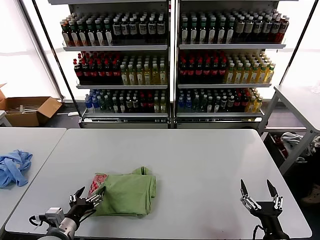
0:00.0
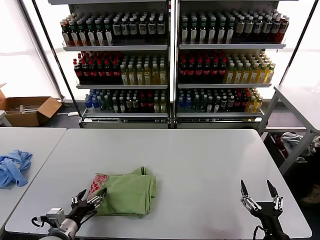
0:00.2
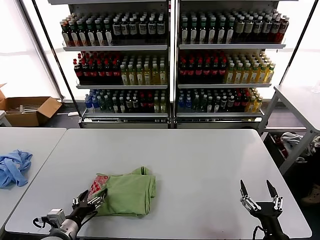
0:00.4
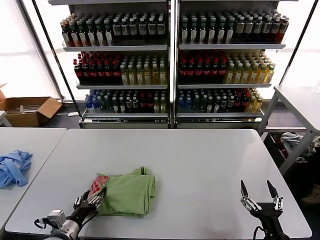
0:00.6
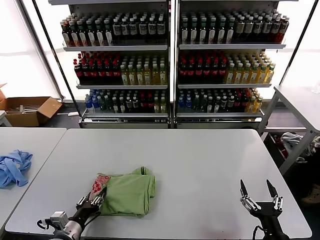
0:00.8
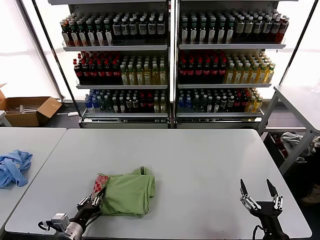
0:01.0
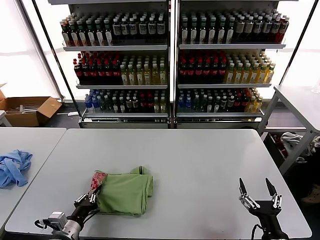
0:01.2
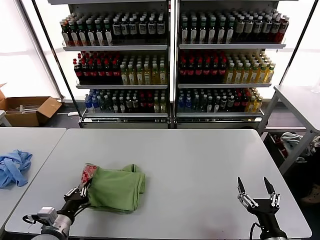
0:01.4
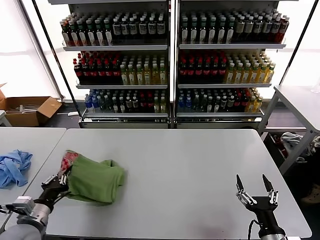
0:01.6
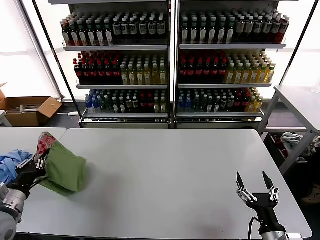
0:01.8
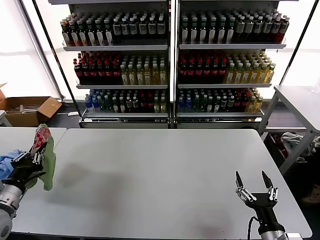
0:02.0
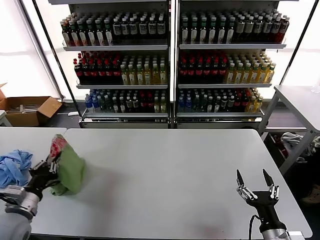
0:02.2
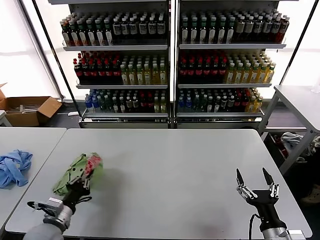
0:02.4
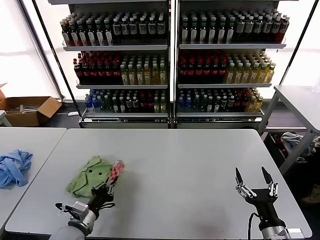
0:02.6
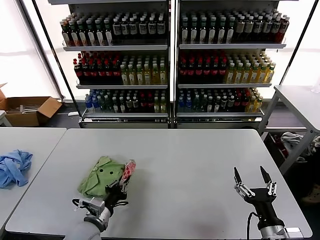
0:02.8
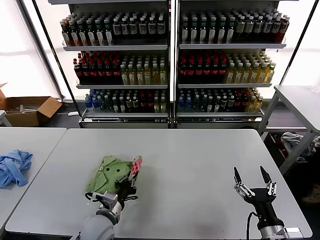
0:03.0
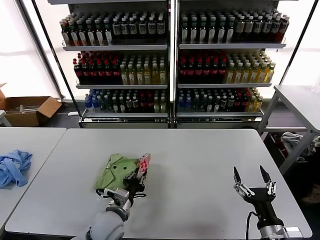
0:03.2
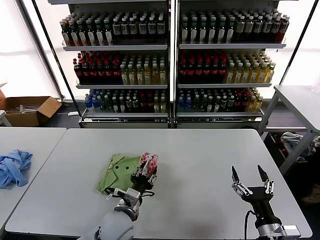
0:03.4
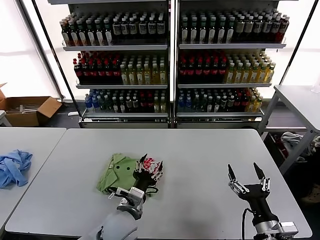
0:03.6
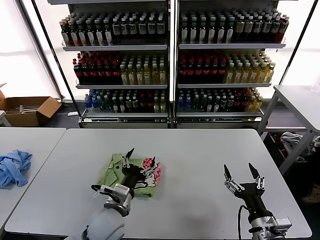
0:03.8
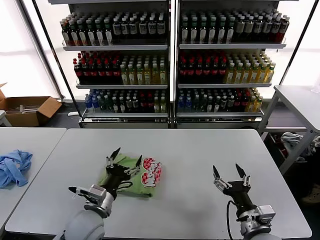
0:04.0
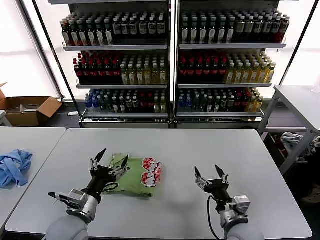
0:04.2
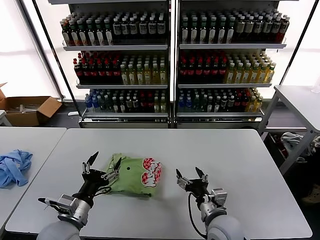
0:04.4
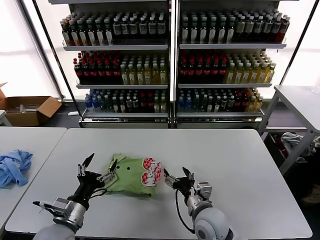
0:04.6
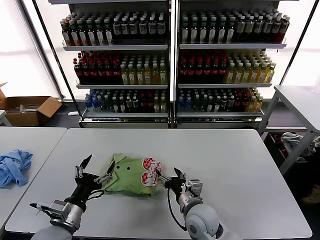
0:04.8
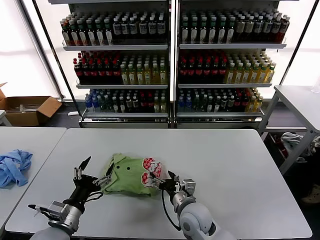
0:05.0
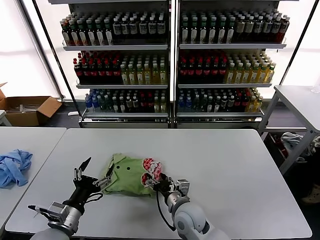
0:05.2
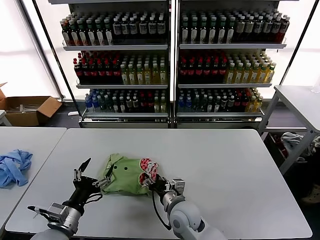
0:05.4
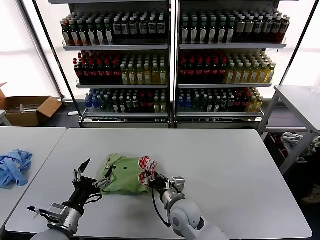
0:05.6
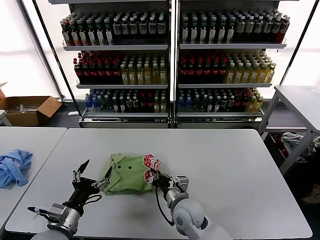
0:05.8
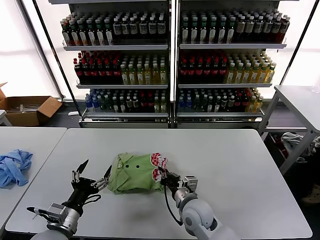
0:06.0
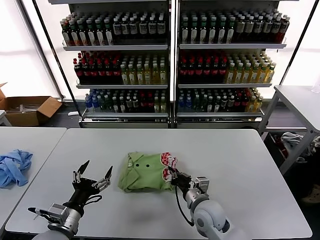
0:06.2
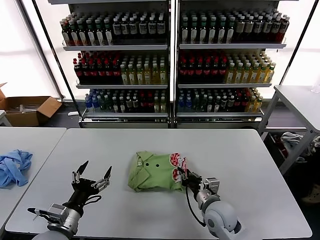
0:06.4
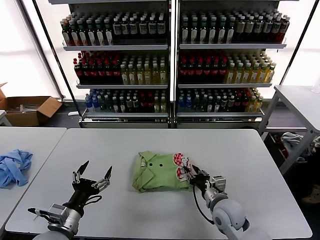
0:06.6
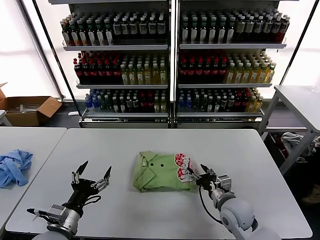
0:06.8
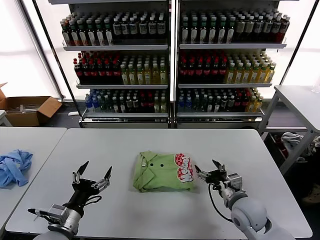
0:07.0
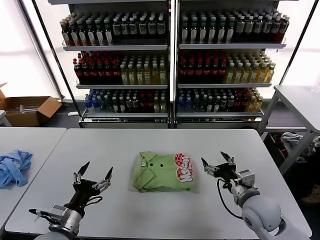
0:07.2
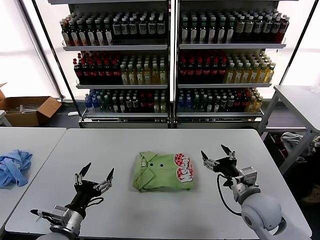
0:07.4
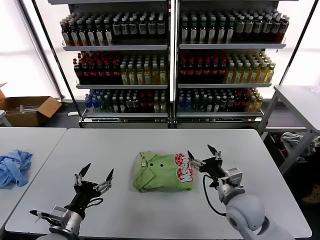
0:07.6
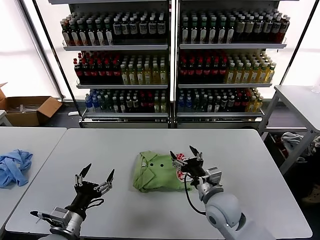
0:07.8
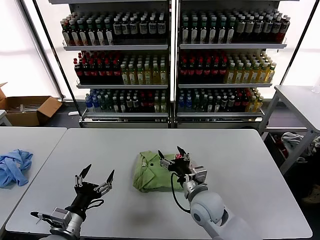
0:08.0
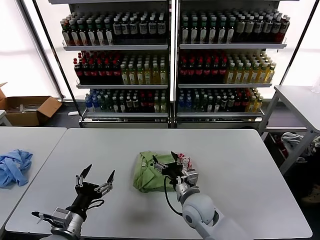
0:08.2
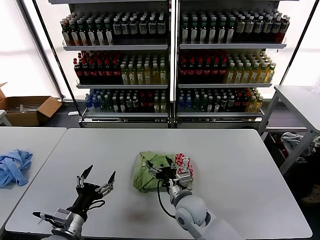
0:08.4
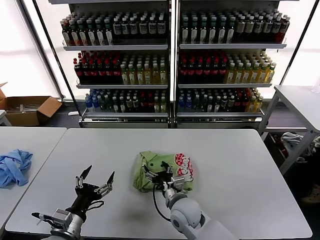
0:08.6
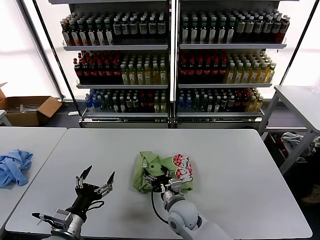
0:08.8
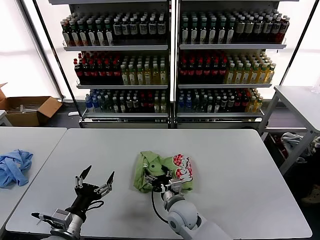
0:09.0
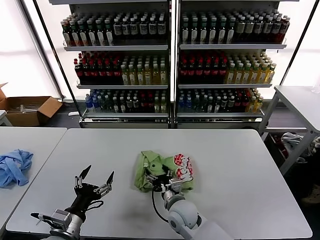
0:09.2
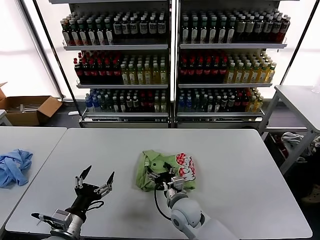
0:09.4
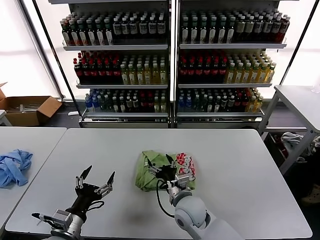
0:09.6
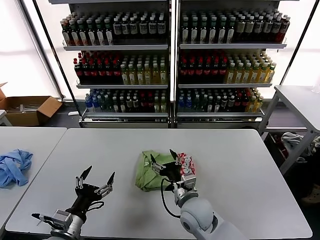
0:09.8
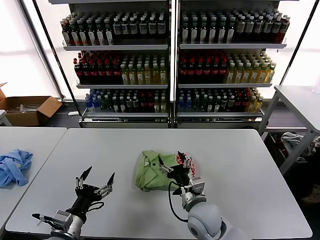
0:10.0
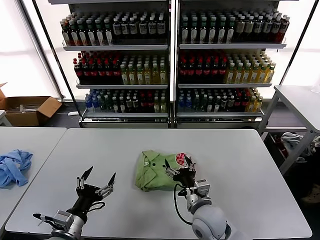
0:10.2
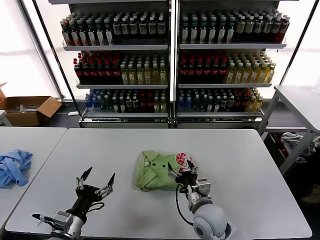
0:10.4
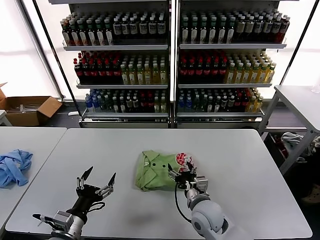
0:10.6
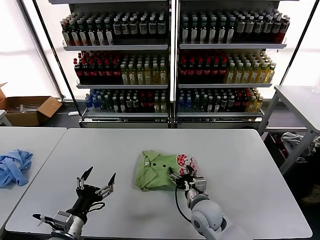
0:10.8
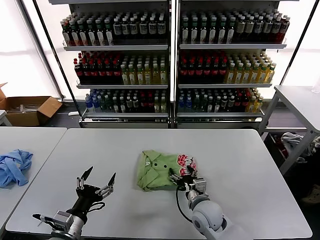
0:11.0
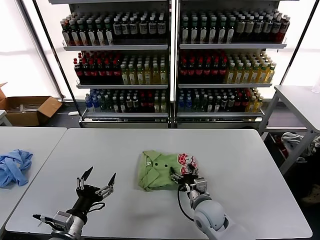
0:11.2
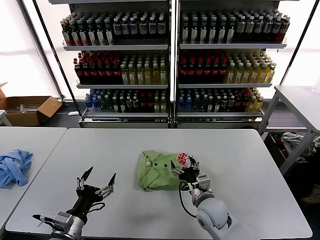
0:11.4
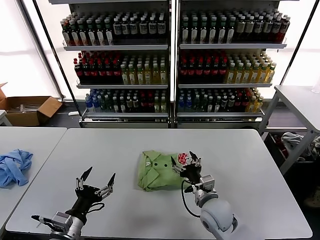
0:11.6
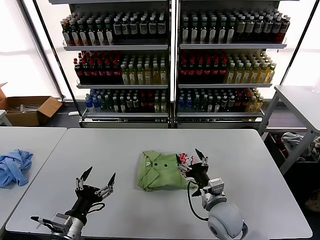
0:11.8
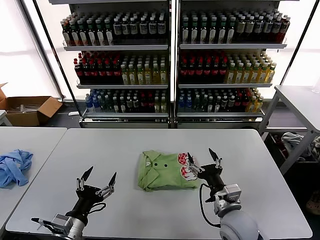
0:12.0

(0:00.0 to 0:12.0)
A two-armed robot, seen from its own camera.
Task of the whole recording: fold and organize the clothes.
Step, 0:00.0 - 0:03.4: Flip the folded clothes over with left gripper.
Step, 0:03.6 - 0:11.6: Drag the clothes to the center of the table.
0:00.0 - 0:01.6: The left gripper heads to the left, covering about 5 cm, and closes up.
0:01.6 - 0:03.0: The left gripper heads to the right, covering roughly 15 cm.
0:03.0 - 0:04.4: The left gripper goes about 10 cm upward and to the left, and opens. The right gripper is displaced to the left and forward by roughly 15 cm.
0:04.4 - 0:06.0: The right gripper shifts roughly 10 cm to the left and forward, and closes its fingers.
0:06.0 - 0:07.6: The right gripper heads to the right and upward, covering some 15 cm, and opens.
0:07.6 - 0:09.0: The right gripper travels to the left and downward by about 20 cm.
0:09.0 - 0:10.4: The right gripper heads to the right and upward, covering some 10 cm.
0:10.4 - 0:12.0: The right gripper is displaced to the right by approximately 5 cm.

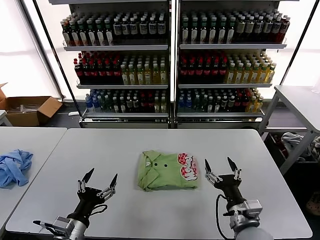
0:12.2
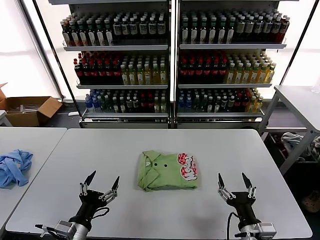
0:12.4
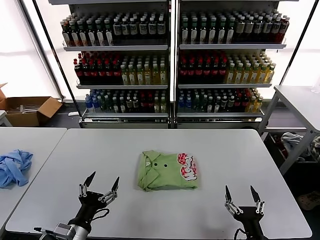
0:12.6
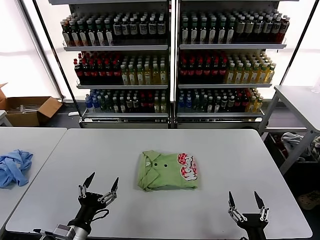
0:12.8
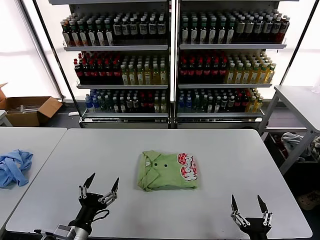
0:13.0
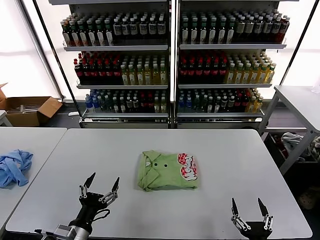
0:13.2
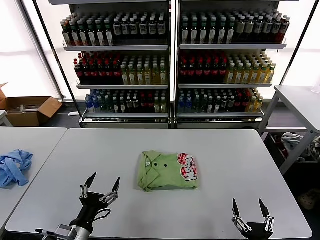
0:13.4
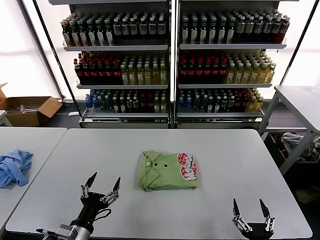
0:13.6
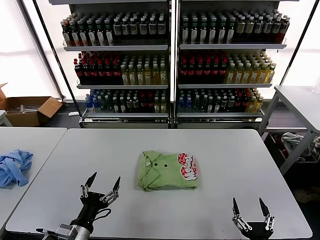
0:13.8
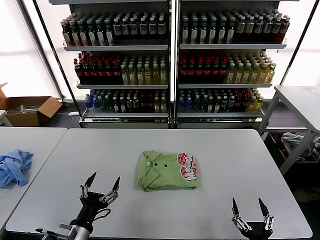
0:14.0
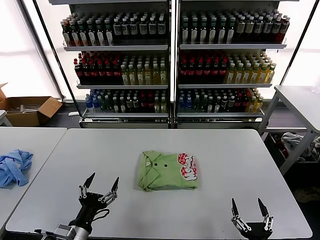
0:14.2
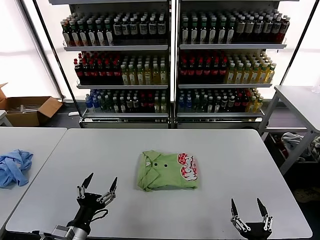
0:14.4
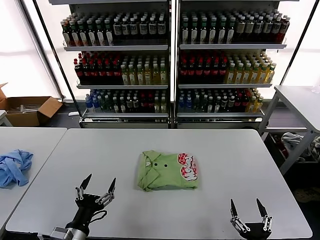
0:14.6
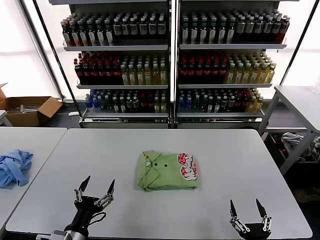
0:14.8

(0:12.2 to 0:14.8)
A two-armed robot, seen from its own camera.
Task of the whole recording: fold and organize the clothes.
0:12.2 - 0:13.4: The right gripper is displaced backward and downward by approximately 15 cm.
0:13.4 - 0:14.8: Both grippers stay put.

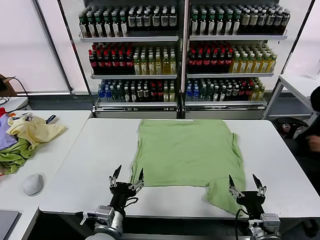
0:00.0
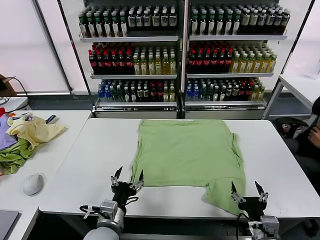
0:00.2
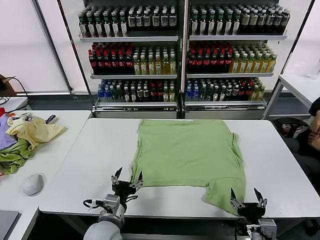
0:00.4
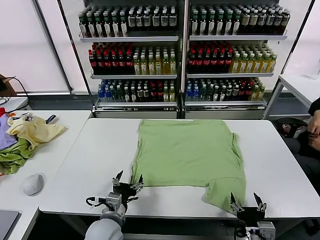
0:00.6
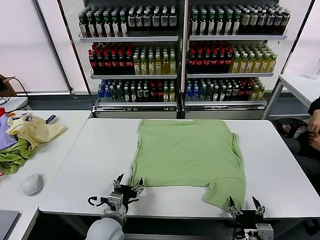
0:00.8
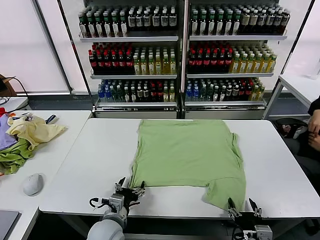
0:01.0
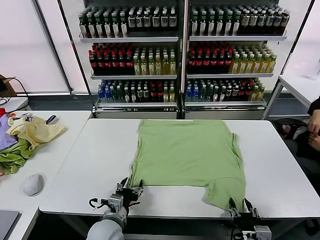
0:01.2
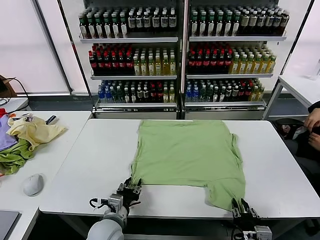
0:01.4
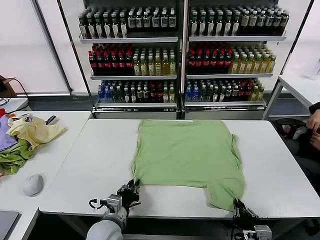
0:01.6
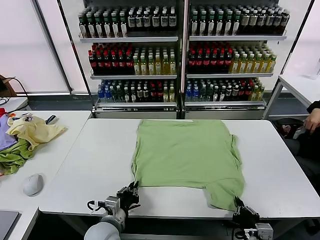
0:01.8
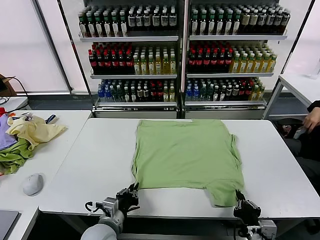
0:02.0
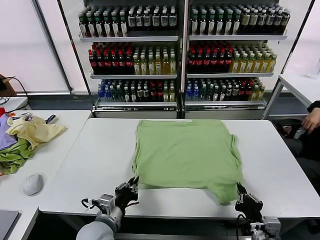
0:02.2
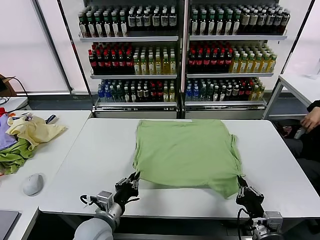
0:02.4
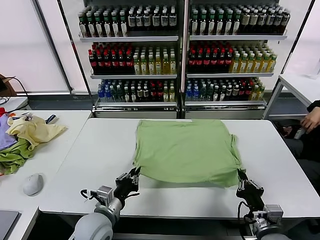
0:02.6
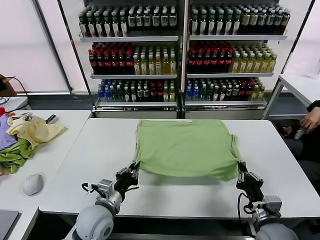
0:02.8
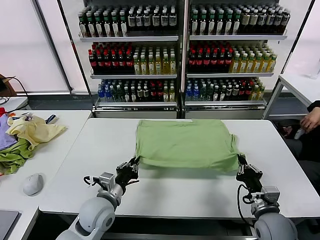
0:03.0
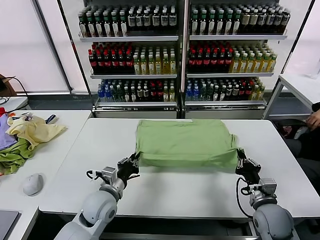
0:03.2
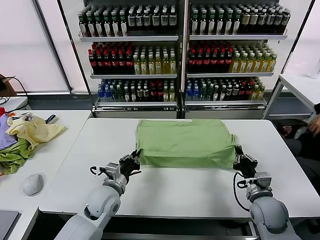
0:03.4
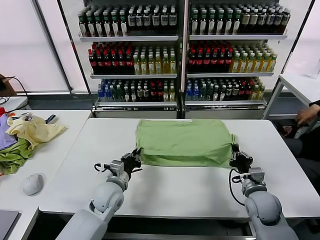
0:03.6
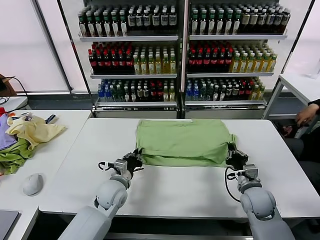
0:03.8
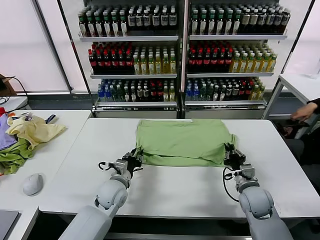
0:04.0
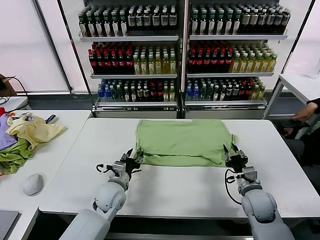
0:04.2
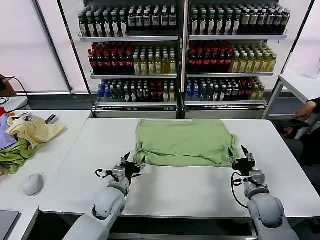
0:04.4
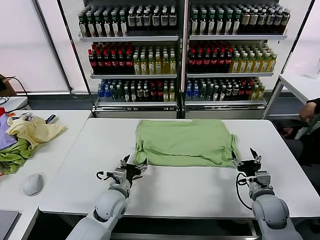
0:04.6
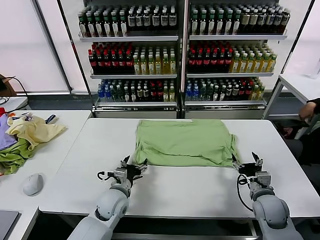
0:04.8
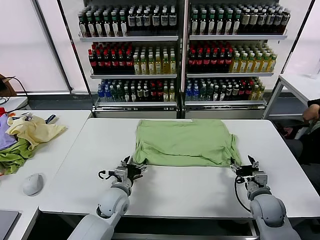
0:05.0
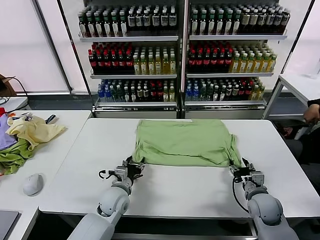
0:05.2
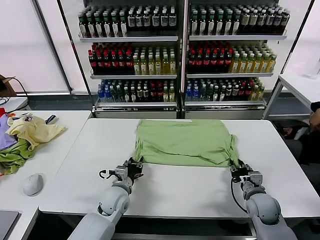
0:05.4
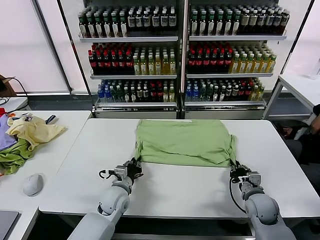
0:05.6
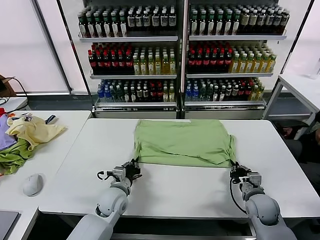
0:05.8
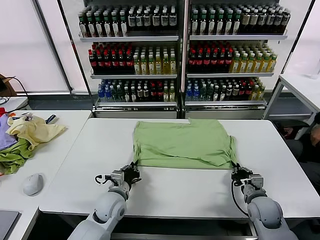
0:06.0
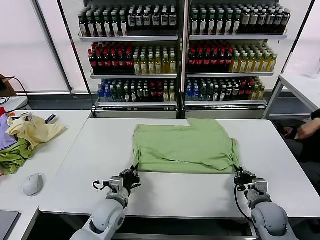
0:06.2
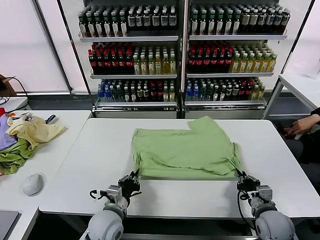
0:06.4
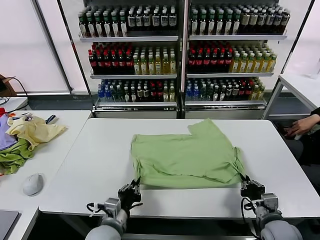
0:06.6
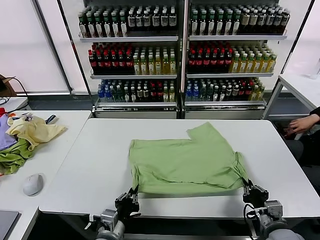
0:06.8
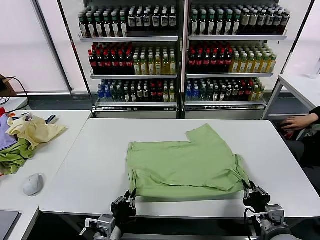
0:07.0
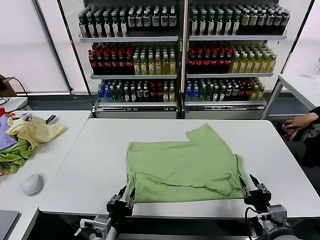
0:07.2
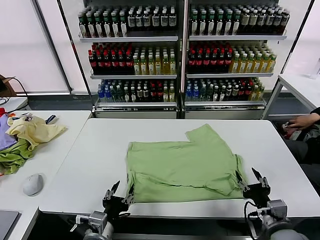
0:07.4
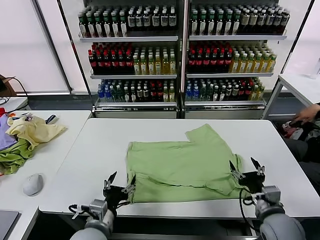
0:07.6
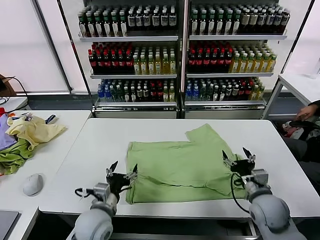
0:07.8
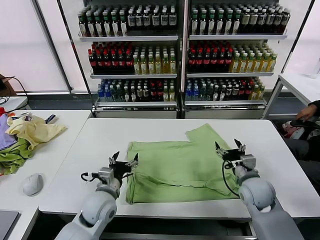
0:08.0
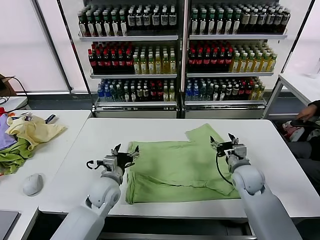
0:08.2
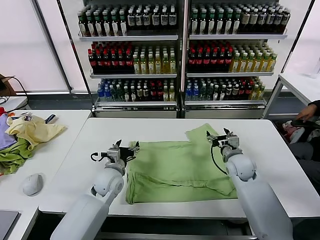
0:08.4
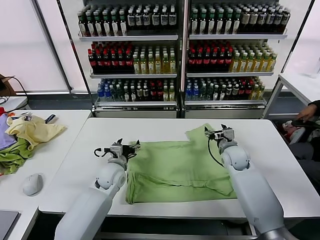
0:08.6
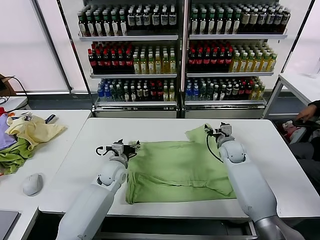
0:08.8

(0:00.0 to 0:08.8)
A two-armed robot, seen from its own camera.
Task of the whole recording: fold and organize the clothes.
Step, 0:00.0 - 0:01.6: use both grippers simultaneously to clamp the lower edge of the clothing fabric.
Step, 0:01.8 - 0:04.2: use both grippers to drag the lower edge of the fabric forward and fold it over the upper edge.
Step, 0:04.4 - 0:07.2: Drag the clothes downward with both gripper.
0:01.4 - 0:03.0: The left gripper travels forward and upward by approximately 10 cm, while the right gripper shifts about 10 cm forward.
0:03.0 - 0:04.4: The left gripper ends up about 5 cm from where it was, and opens, while the right gripper moves some 5 cm, and opens its fingers.
0:04.4 - 0:05.8: The left gripper closes; the right gripper closes.
0:05.8 - 0:07.4: The left gripper heads backward, covering some 20 cm, and opens up. Meanwhile the right gripper goes some 15 cm backward and upward, and opens up.
0:07.4 - 0:08.8: Both grippers move forward, approximately 30 cm.
